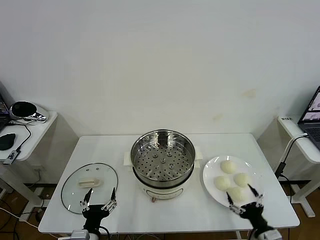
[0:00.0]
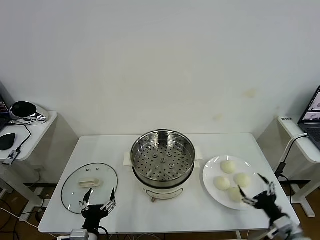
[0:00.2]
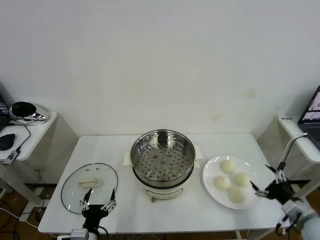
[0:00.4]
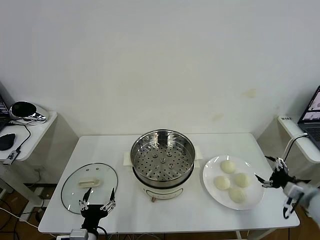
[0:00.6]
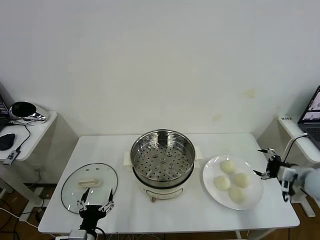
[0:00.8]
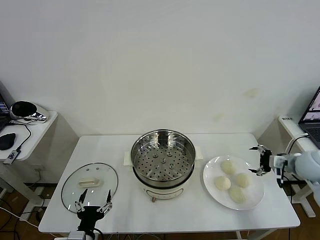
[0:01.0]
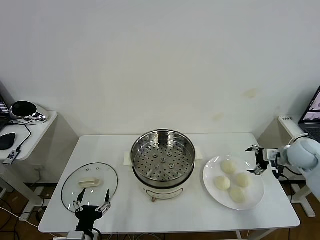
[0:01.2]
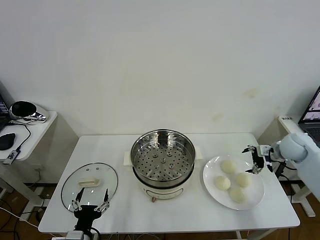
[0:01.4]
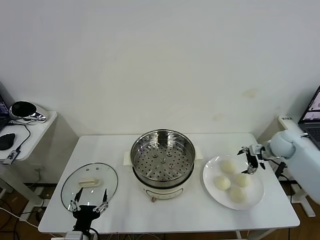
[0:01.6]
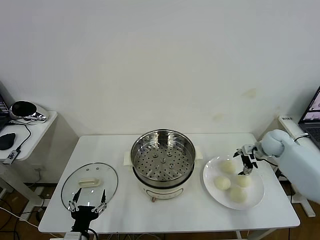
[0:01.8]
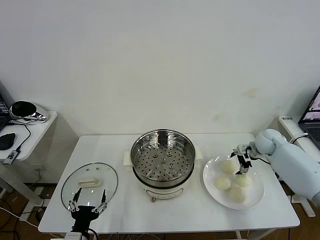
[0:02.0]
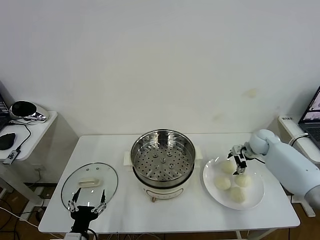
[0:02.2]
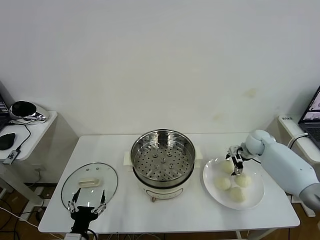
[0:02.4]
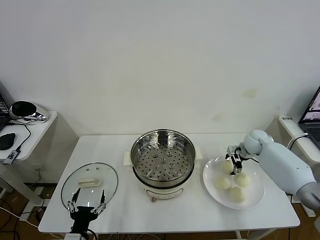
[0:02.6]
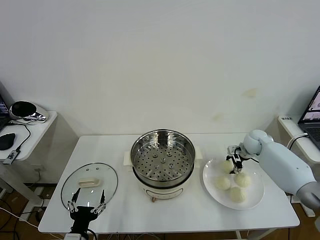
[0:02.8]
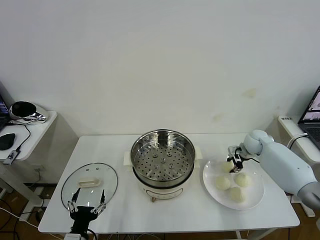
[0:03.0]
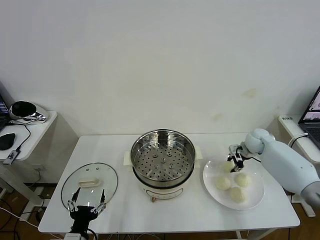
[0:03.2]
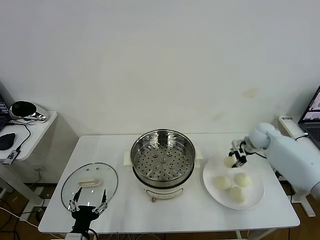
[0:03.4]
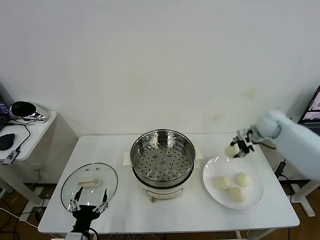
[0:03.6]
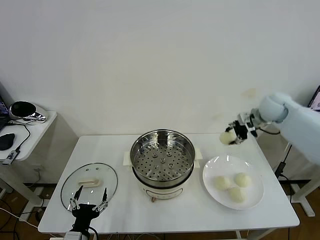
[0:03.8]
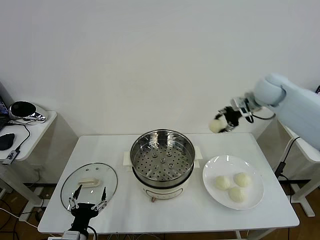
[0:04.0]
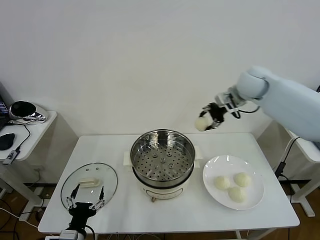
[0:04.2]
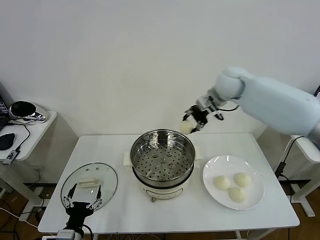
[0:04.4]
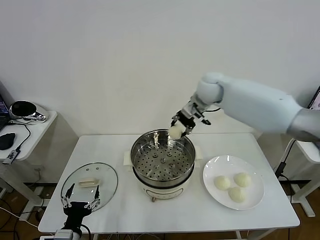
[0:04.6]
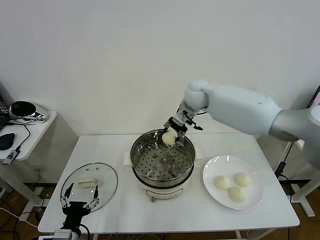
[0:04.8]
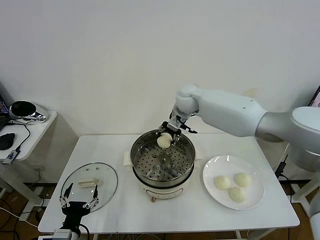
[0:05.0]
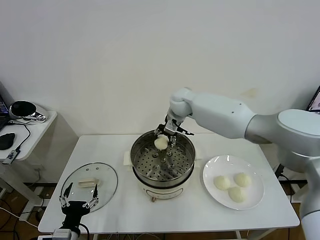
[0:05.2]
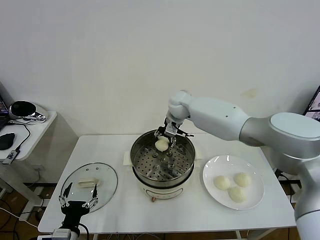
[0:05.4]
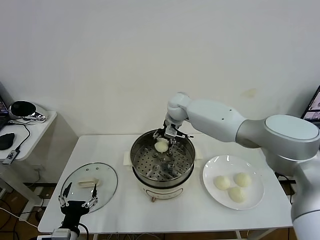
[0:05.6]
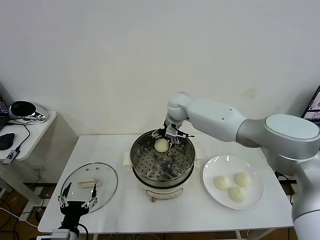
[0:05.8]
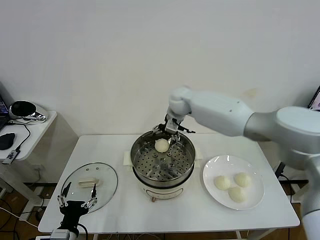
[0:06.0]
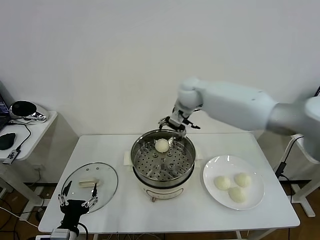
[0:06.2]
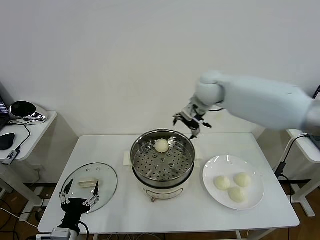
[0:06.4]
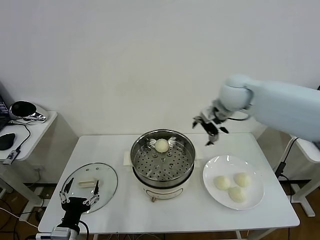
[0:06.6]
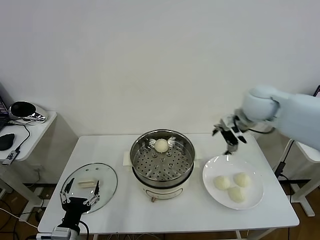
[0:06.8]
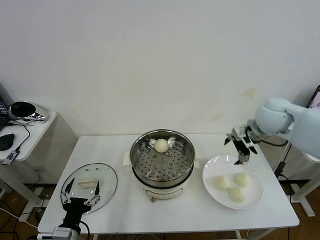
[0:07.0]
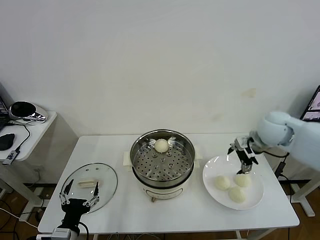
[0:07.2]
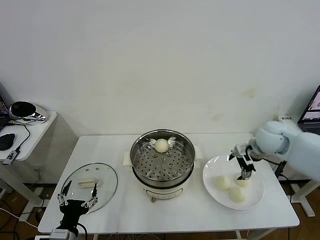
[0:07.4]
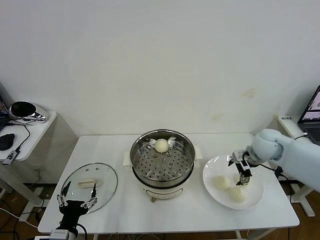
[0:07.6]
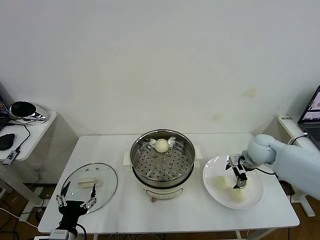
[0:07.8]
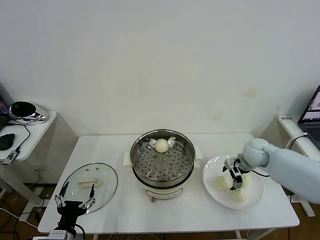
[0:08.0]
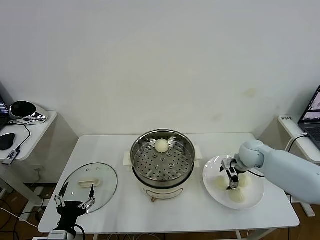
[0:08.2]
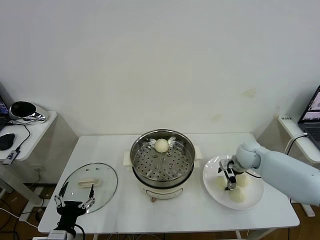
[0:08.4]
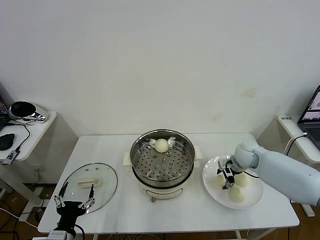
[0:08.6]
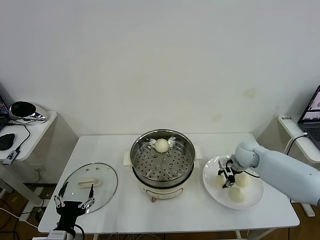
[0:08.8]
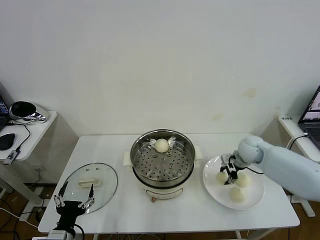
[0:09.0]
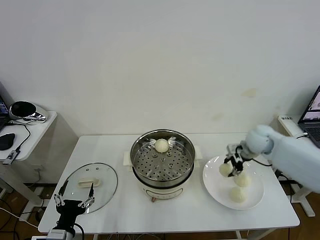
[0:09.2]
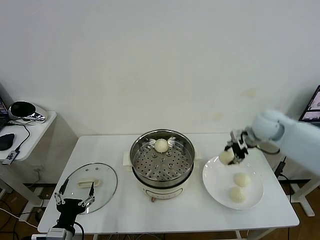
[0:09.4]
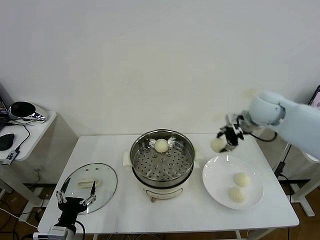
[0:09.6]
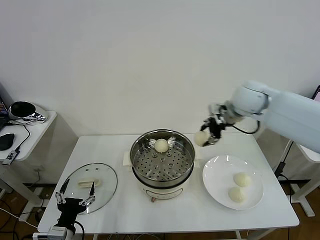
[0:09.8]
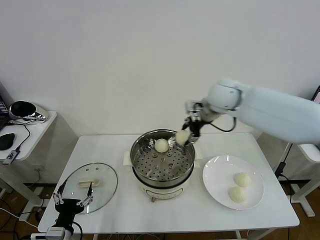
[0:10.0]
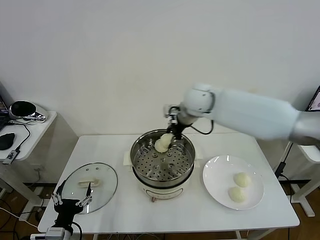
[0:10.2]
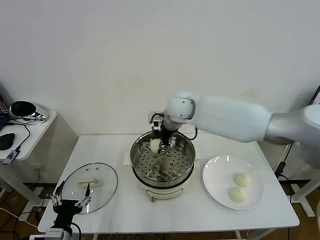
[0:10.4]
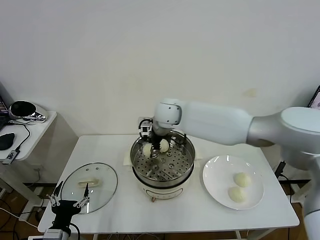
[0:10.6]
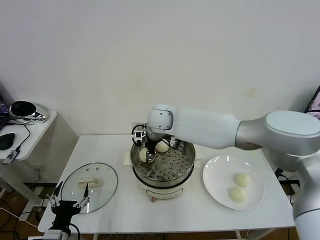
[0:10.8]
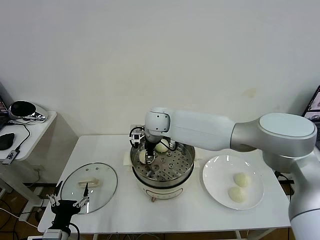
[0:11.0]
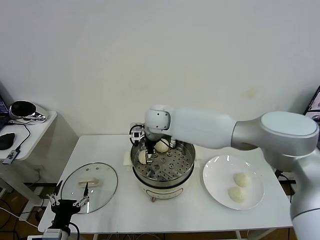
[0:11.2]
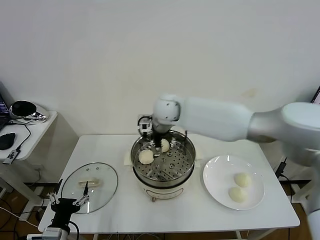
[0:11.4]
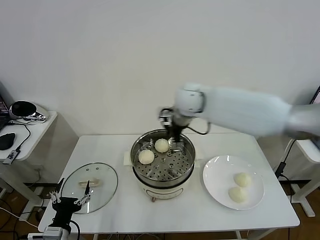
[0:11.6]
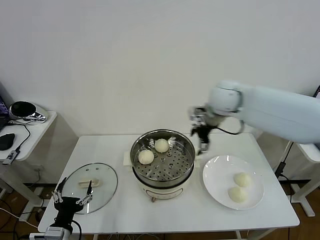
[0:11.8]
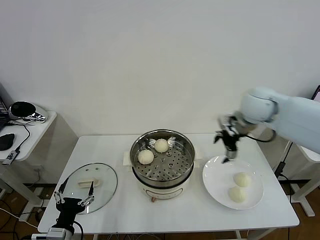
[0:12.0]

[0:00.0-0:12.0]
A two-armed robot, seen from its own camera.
Task of the whole recording: take steamed baozi put them in steamer then cover it.
Step, 0.0 to 3.0 s: Grasp the baozi in the plate with right gripper.
Step, 3.2 to 6.0 s: Place the baozi on the steamer with right gripper.
Step, 6.2 to 8.8 s: Grasp the baozi in the plate with right gripper.
Step, 9.0 to 11.2 s: Place the baozi on the steamer with right gripper.
1.6 to 3.0 s: The right gripper moves to the left, approximately 5 cm, and closes up.
3.0 to 4.4 s: The right gripper is displaced upward and to the left by approximately 30 cm.
4.4 to 6.0 s: The right gripper moves to the left and downward, about 10 cm, and opens up.
6.0 to 7.6 s: The right gripper travels to the right, backward and downward by approximately 30 cm.
7.6 to 9.0 s: The right gripper closes its fingers.
9.0 to 10.4 s: The right gripper is displaced to the left and upward by approximately 30 cm.
10.4 to 12.0 s: The right gripper is displaced to the right by approximately 25 cm, and opens.

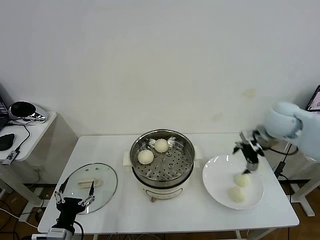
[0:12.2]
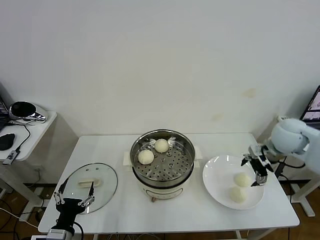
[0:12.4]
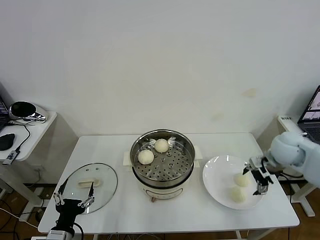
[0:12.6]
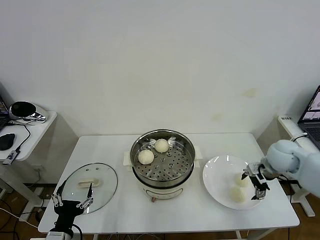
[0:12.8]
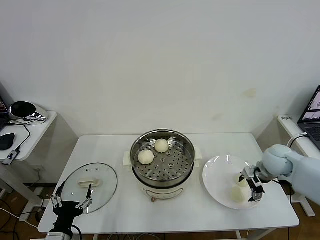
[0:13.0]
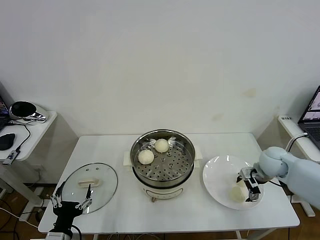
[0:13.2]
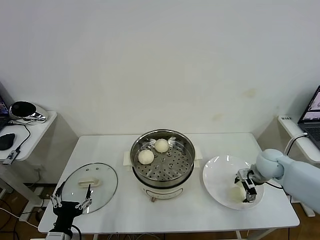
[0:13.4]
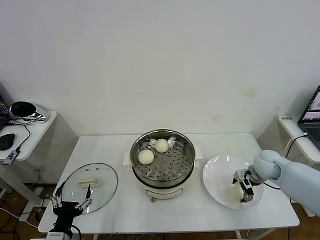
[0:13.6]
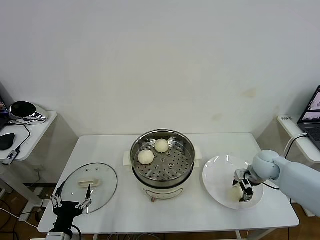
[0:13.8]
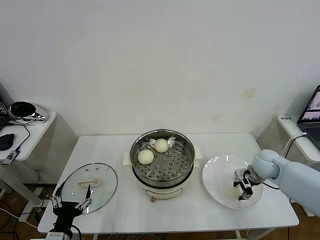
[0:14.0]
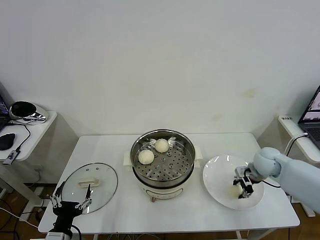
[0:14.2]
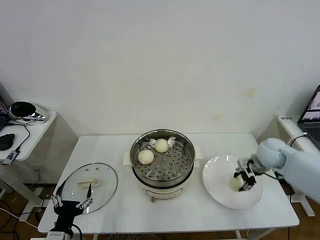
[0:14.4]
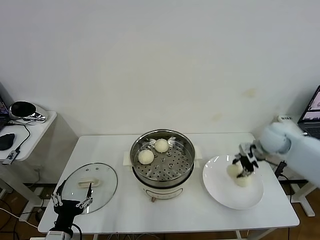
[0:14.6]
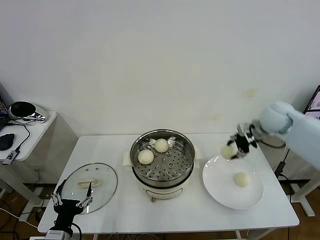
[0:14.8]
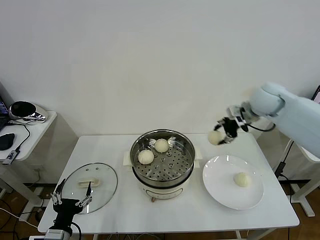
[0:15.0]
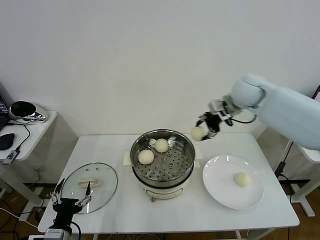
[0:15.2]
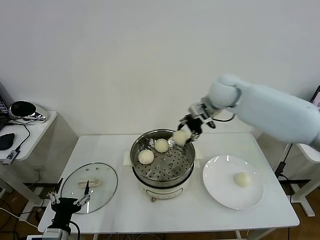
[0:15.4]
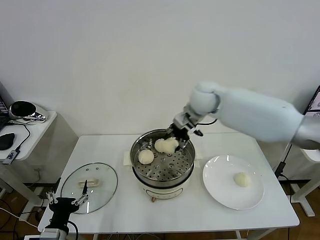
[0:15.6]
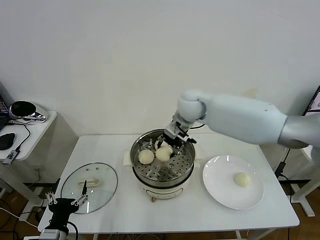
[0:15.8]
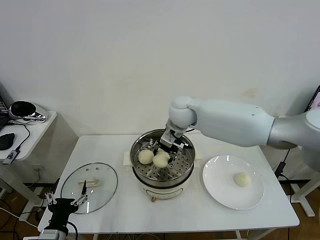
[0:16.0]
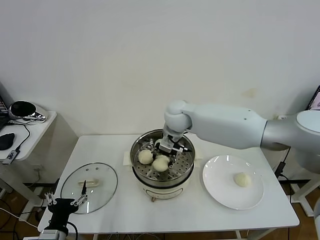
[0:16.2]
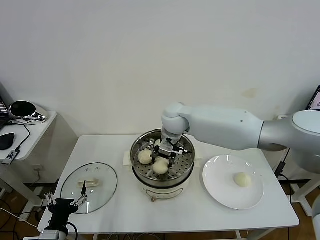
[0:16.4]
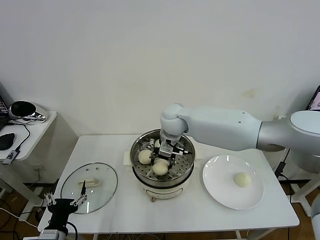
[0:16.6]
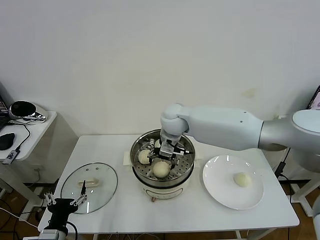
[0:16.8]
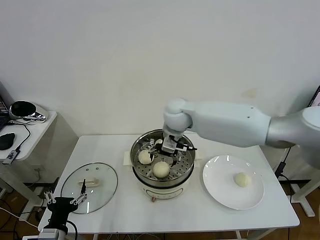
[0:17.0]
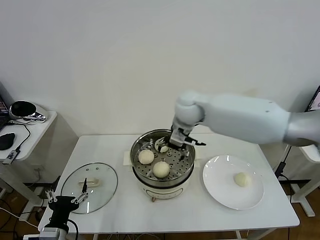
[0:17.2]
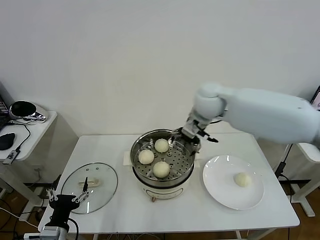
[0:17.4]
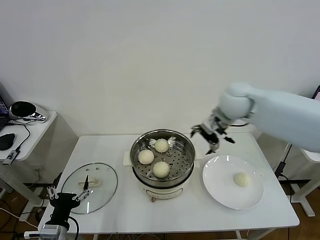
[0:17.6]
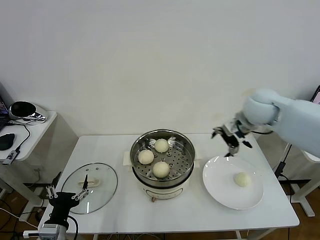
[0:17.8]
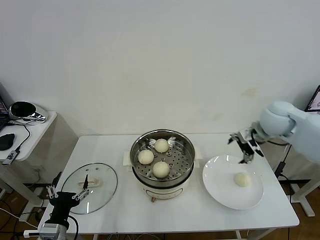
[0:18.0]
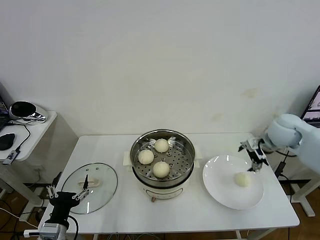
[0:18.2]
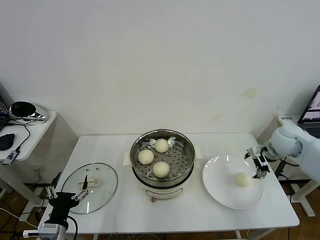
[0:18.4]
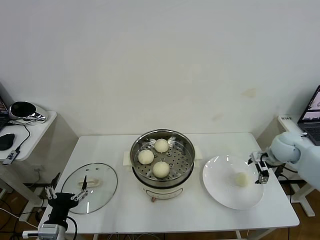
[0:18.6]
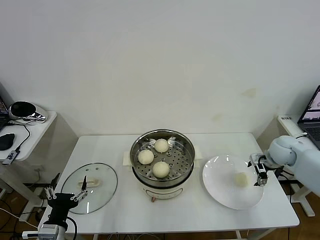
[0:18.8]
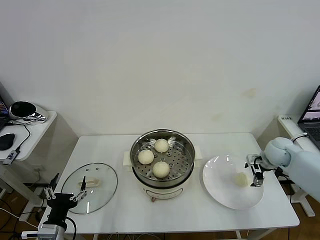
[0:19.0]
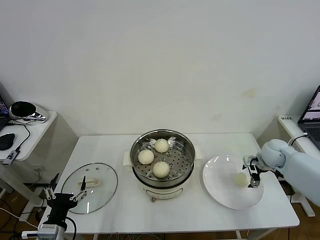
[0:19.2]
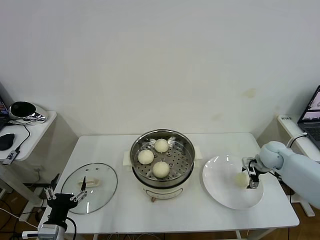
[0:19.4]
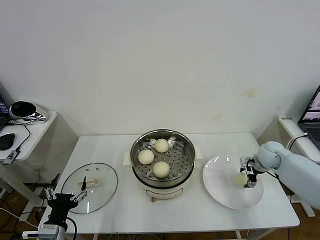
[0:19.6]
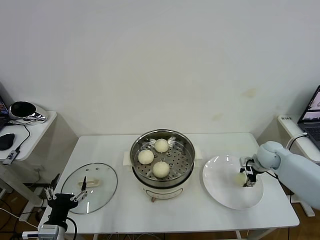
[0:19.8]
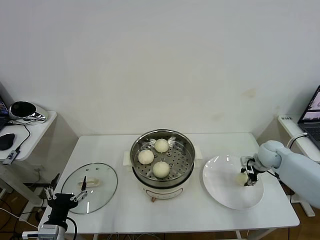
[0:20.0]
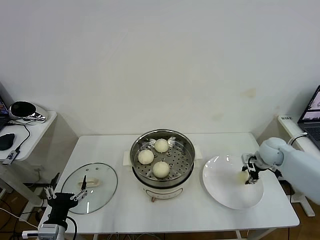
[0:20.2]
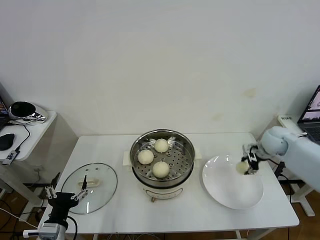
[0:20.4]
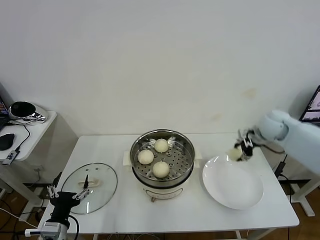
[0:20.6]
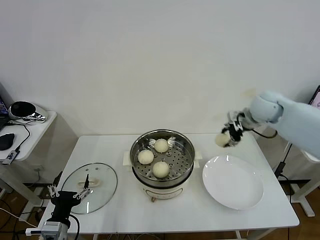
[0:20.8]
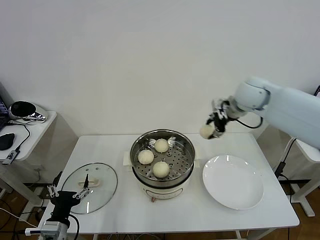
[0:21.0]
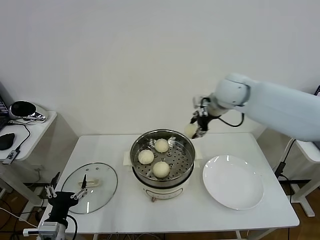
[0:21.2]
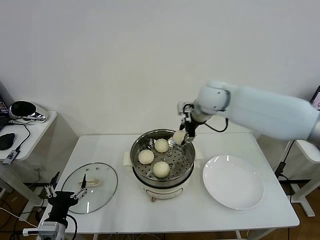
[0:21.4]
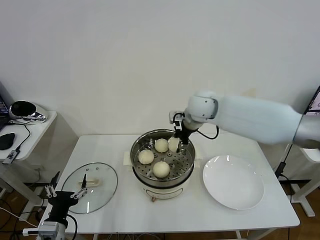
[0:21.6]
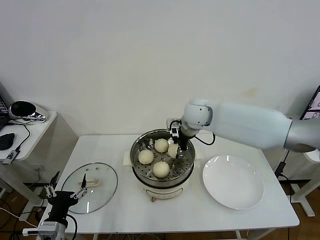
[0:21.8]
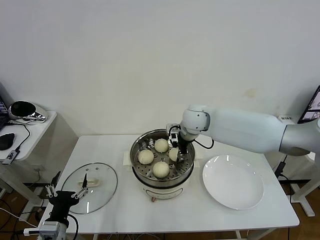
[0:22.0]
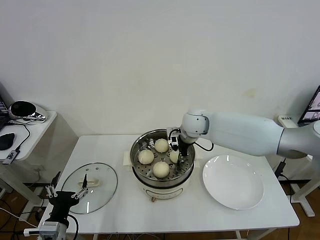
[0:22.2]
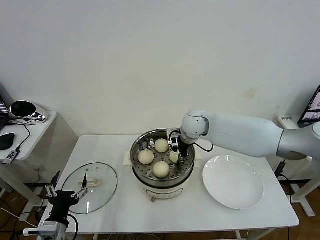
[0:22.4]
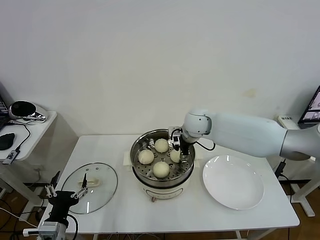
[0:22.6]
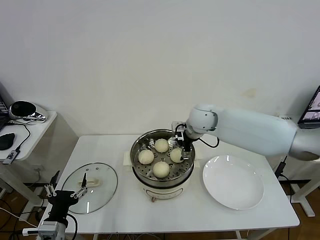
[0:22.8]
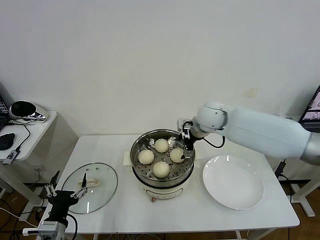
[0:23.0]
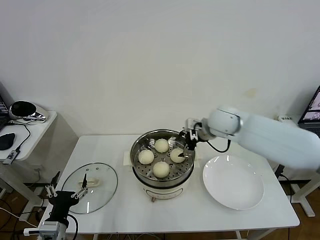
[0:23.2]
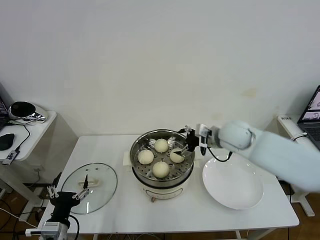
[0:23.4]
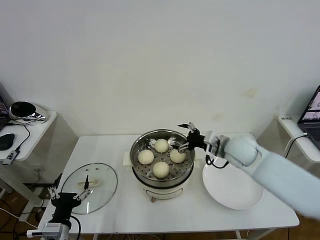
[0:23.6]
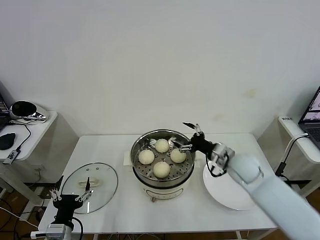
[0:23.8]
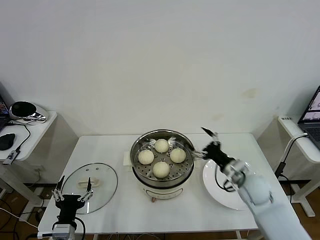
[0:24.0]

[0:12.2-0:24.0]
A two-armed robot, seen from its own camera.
Task of the whole recording: take steamed baozi put them in steamer then cover it.
Step, 12.2 to 14.0 s: Grasp the baozi in the plate with right gripper.
Step, 14.2 to 16.8 s: Place the baozi on the steamer with right gripper.
Step, 17.2 to 20.0 s: Grasp the baozi in the plate with right gripper.
Step, 20.2 to 22.8 s: Place the baozi on the steamer with right gripper.
12.2 to 13.6 s: The right gripper travels downward by roughly 20 cm.
13.6 to 15.2 s: The right gripper goes approximately 30 cm upward, to the left and forward, and closes.
15.2 to 16.6 s: The right gripper travels to the left and downward by some 20 cm.
16.6 to 18.2 s: The right gripper goes roughly 35 cm to the right, and opens its fingers.
18.2 to 19.6 s: The right gripper travels downward by some 15 cm, and closes.
19.6 to 21.0 s: The right gripper goes approximately 30 cm upward and to the left, and closes its fingers.
21.0 to 22.6 s: The right gripper is displaced to the left and downward by roughly 20 cm, and opens up.
22.6 to 24.0 s: The right gripper moves to the right, backward and downward, roughly 25 cm.
